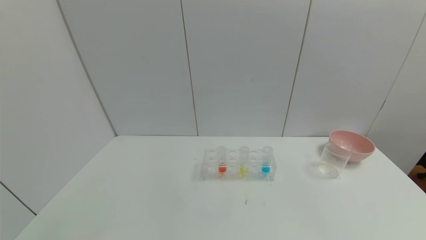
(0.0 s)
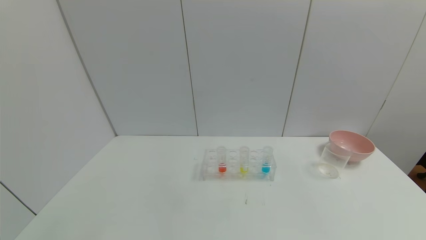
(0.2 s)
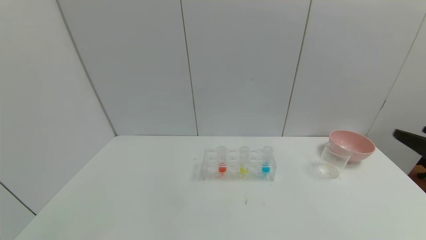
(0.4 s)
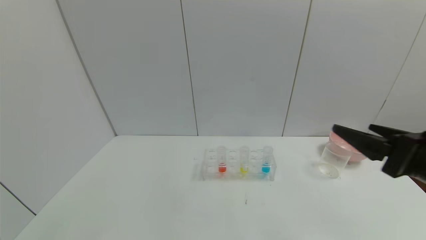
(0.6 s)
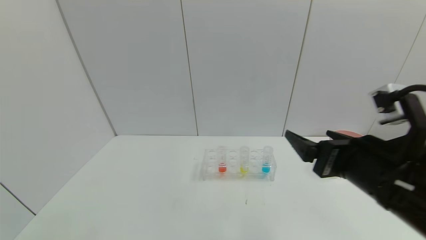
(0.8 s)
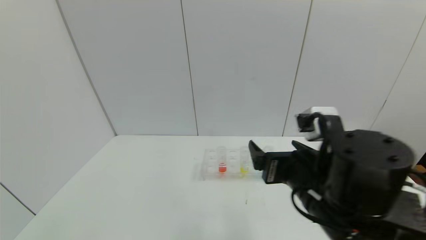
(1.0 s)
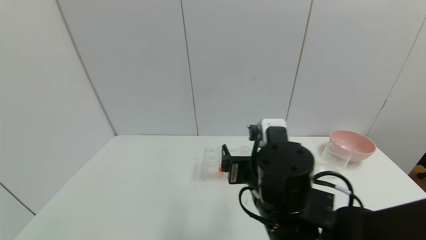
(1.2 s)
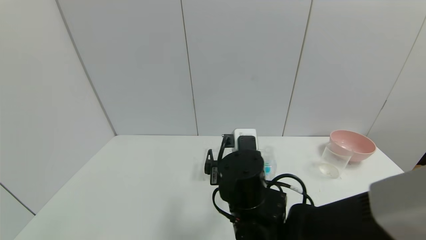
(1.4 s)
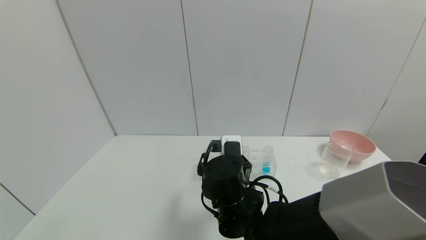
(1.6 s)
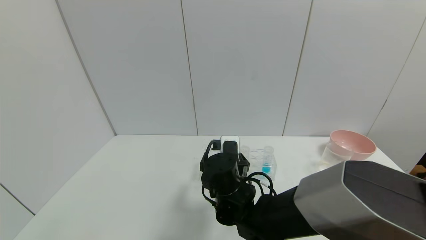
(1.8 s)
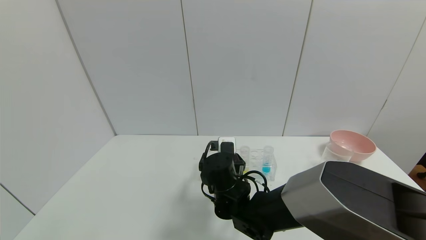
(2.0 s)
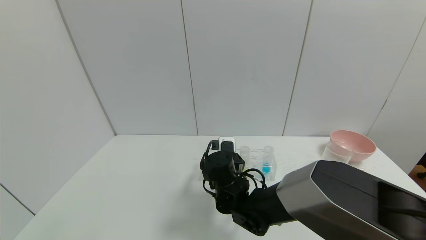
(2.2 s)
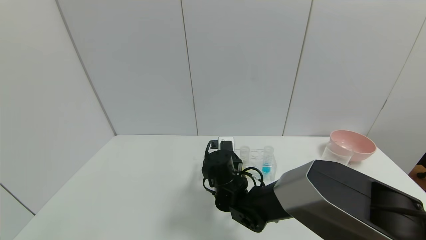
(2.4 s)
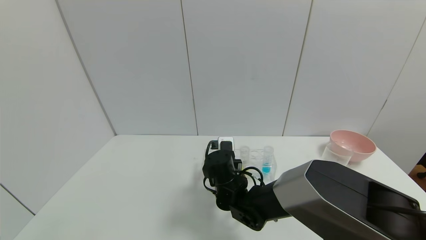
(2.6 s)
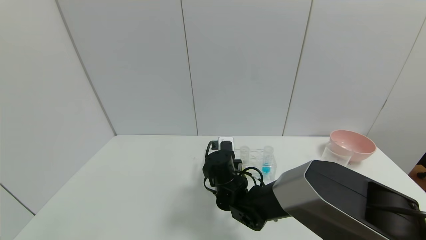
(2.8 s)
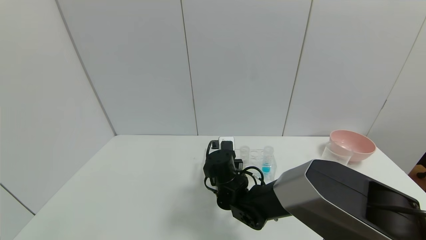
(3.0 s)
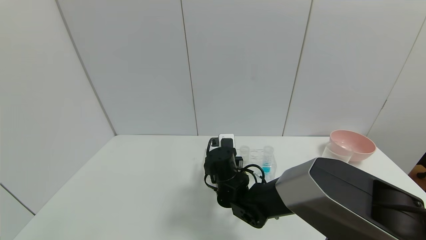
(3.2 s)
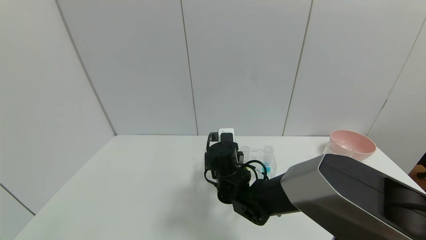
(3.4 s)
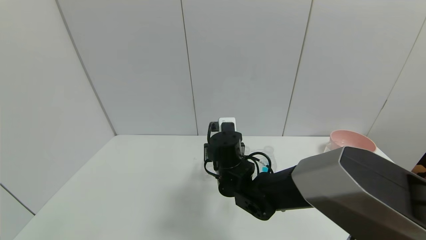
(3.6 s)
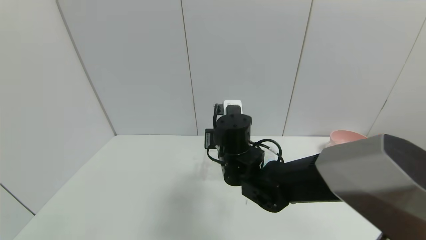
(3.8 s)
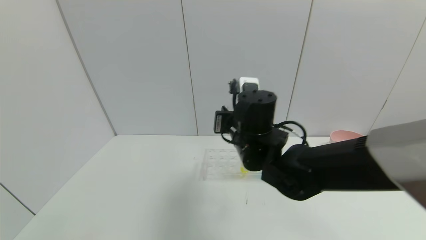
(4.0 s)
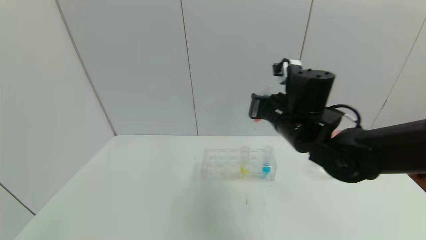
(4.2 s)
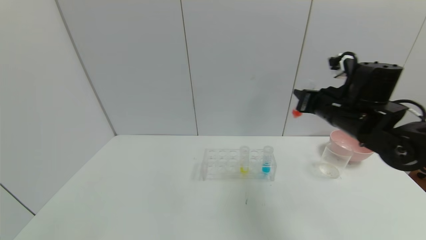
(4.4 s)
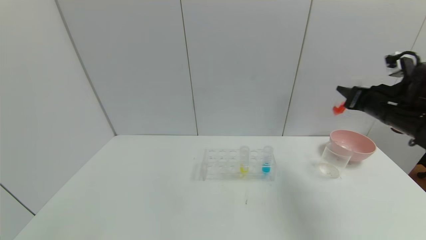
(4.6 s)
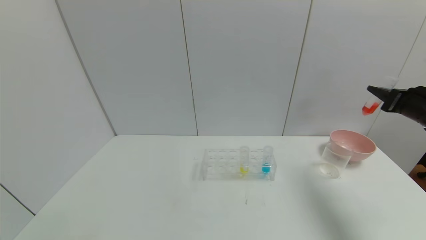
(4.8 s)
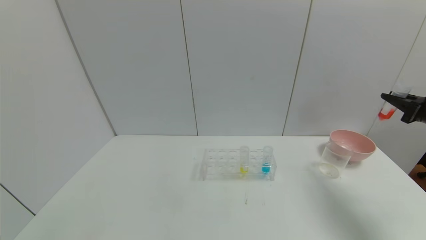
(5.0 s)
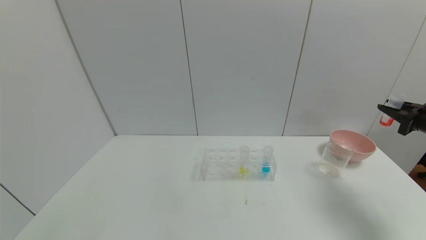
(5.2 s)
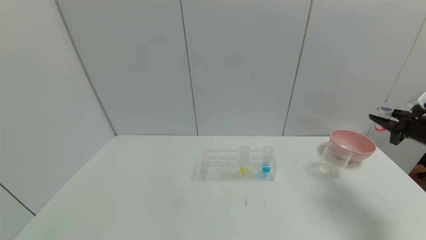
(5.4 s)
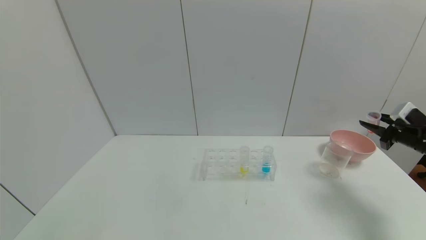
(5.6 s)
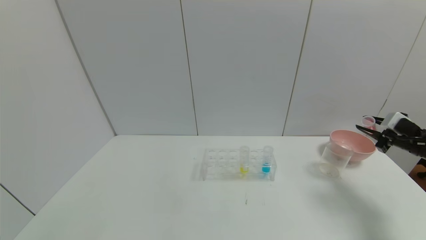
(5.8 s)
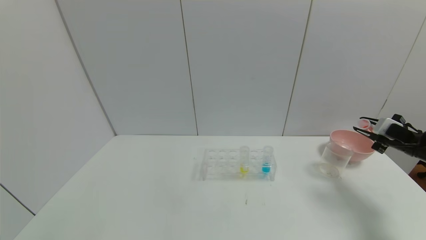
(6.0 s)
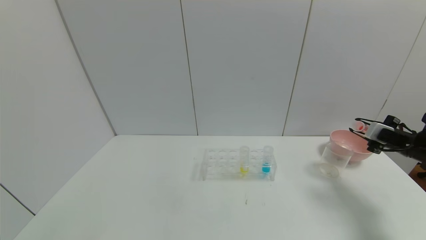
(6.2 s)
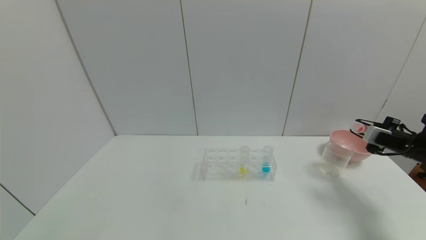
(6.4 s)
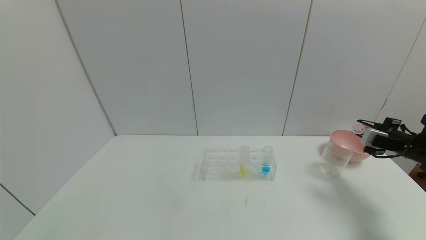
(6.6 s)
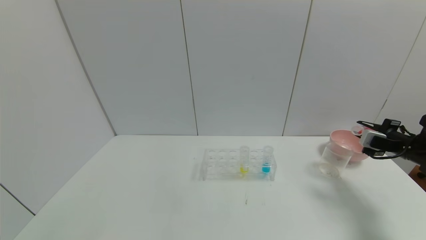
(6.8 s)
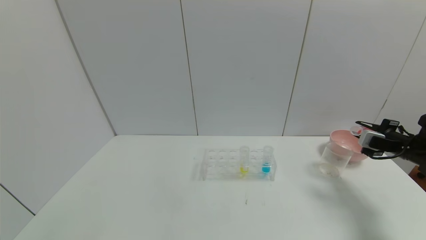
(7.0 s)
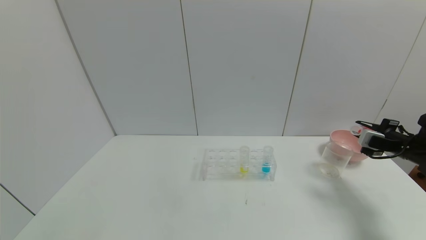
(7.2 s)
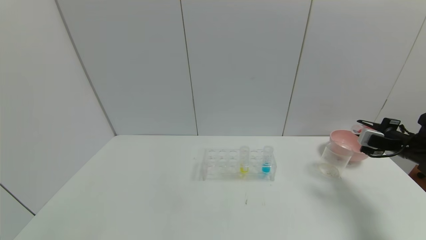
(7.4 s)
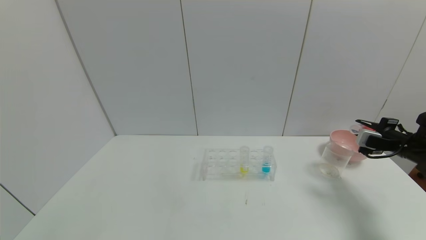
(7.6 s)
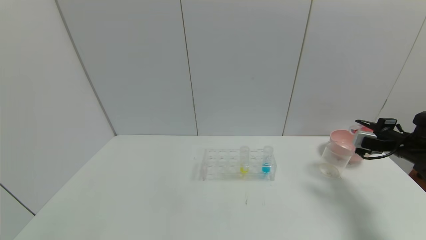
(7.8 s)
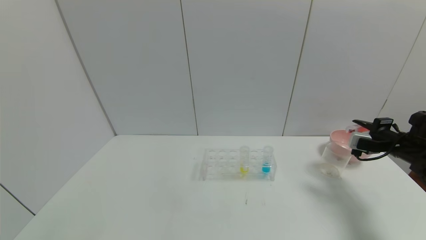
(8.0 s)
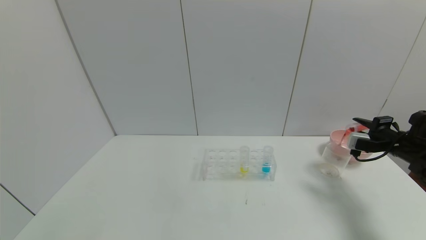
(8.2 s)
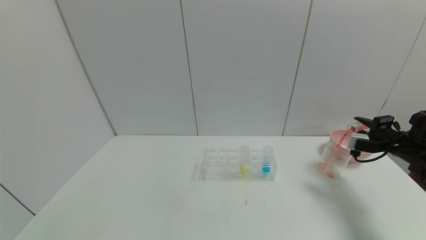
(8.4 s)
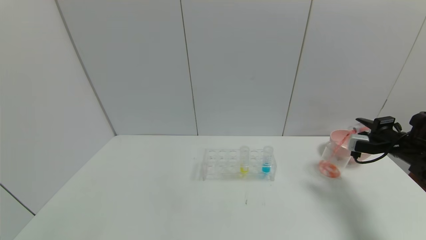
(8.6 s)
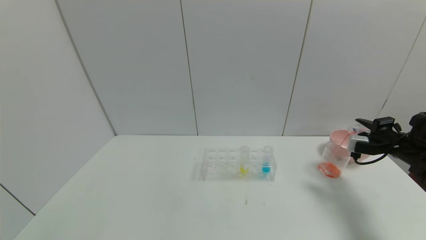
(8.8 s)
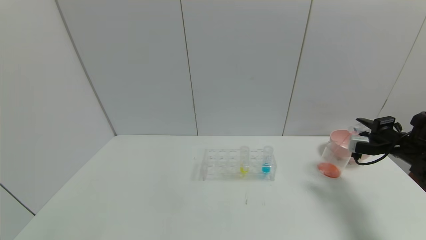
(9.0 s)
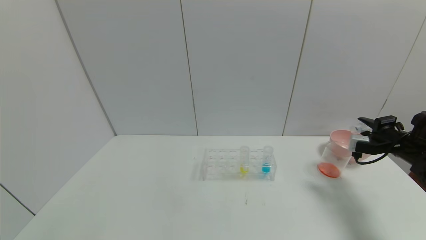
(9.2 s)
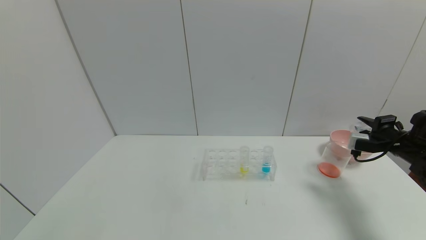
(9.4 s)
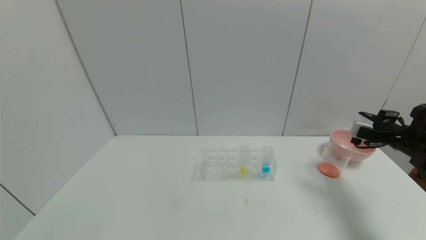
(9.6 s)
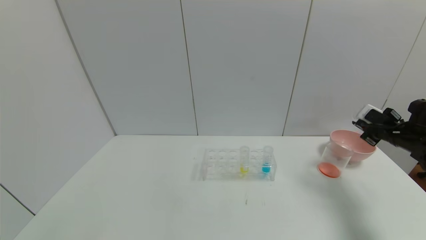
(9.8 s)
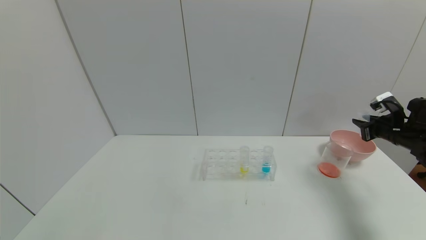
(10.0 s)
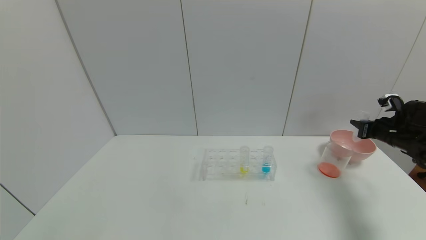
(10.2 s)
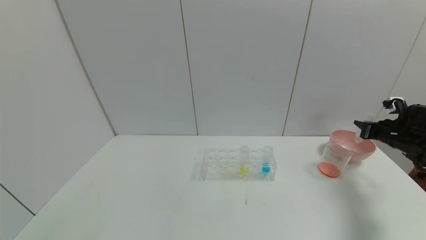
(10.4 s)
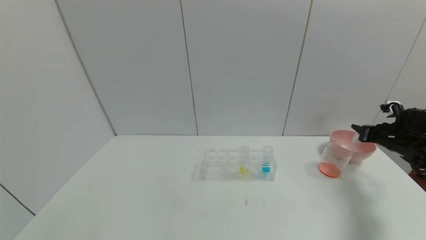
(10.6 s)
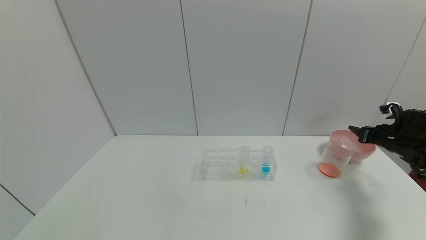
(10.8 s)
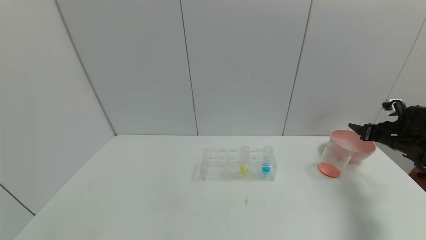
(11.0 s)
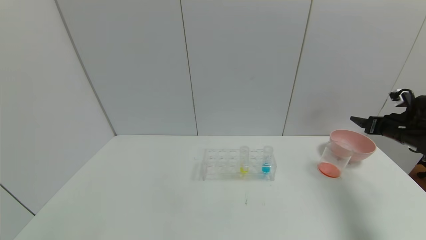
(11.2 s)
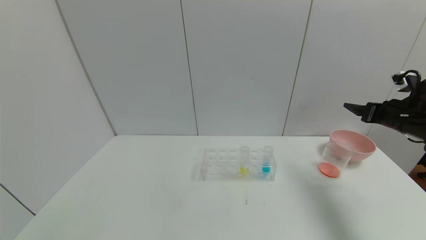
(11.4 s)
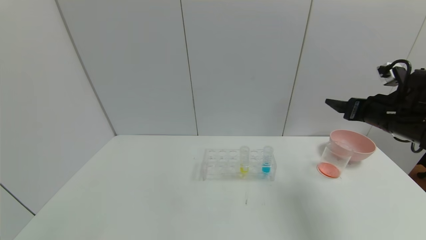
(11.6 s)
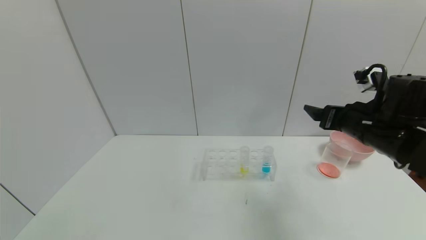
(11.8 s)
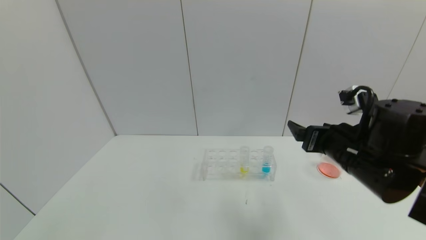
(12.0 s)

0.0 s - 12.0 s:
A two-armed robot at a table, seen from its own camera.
Task of the whole recording: pick up the test tube with yellow pigment and the test tube with red pigment by grippers and pour them into the beaker.
Step, 0.0 s - 2.8 s: Grasp the red reagent with the right gripper.
Step, 3.0 s - 9.2 s: Pour the red reagent into the graduated cylinder with the right gripper.
Step, 9.4 s - 10.8 s: Place the test tube into the bowl with the right gripper.
0.0 s - 1.6 s: The right gripper shifts approximately 40 cm to the left and forward.
1.6 s - 3.0 s: The right gripper is displaced forward and downward by about 10 cm, and closes up.
3.0 s - 4.4 s: The right gripper is displaced to the right and upward by some 30 cm.
4.4 s - 6.0 s: The right gripper travels to the right and downward by roughly 25 cm.
7.6 s - 9.0 s: The grippers make only small movements.
10.4 s - 12.0 s: The right gripper goes approximately 30 cm to the left and backward, and opens.

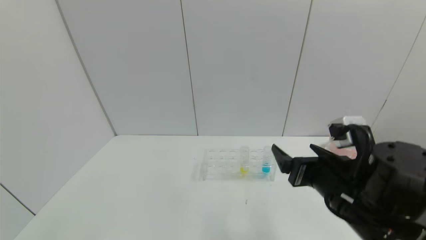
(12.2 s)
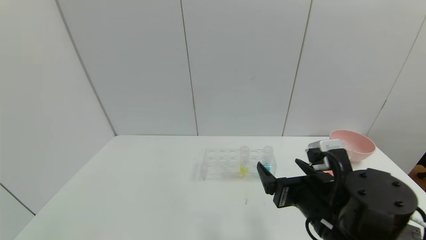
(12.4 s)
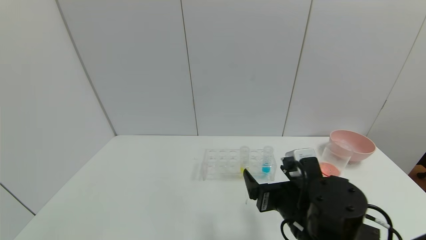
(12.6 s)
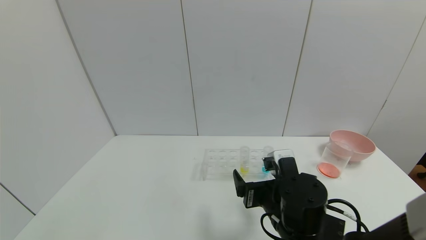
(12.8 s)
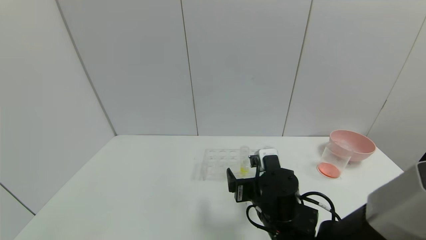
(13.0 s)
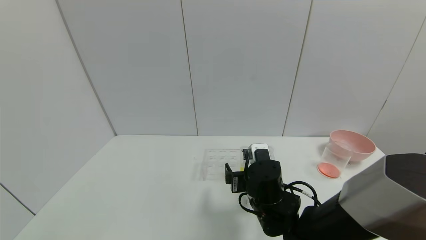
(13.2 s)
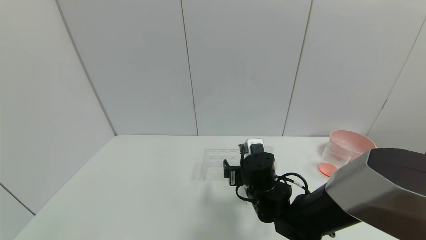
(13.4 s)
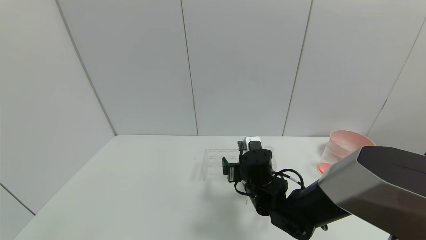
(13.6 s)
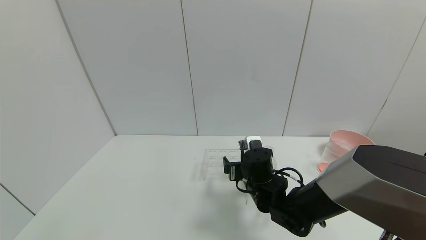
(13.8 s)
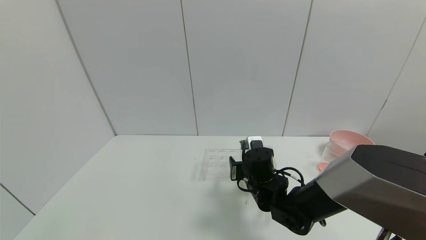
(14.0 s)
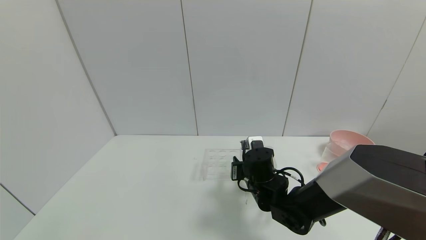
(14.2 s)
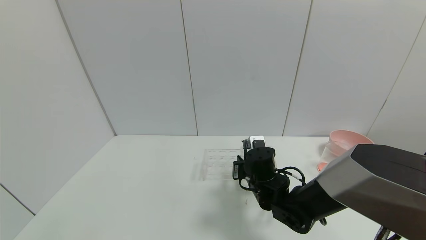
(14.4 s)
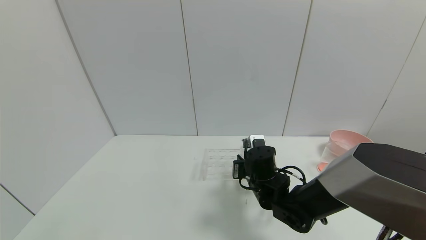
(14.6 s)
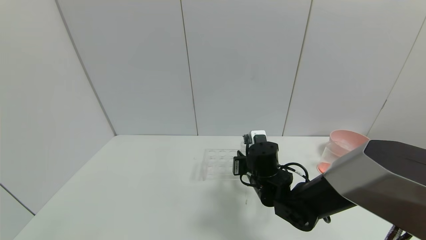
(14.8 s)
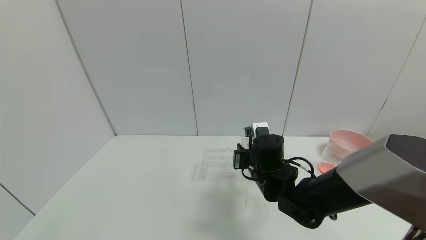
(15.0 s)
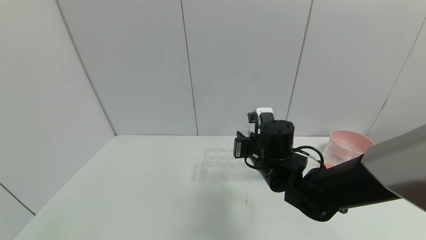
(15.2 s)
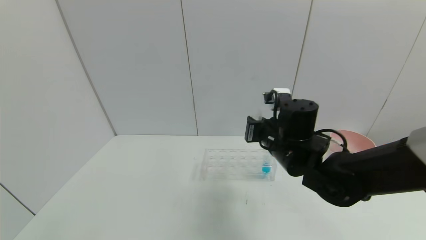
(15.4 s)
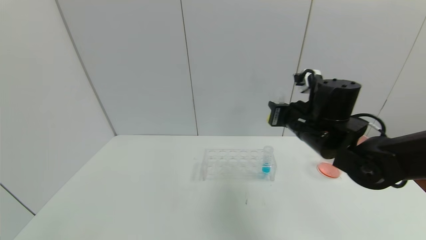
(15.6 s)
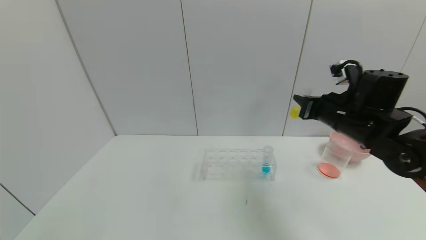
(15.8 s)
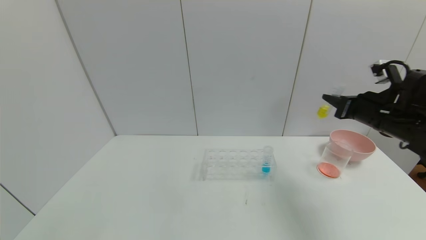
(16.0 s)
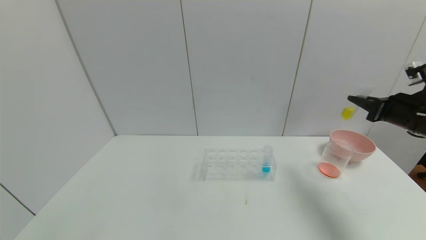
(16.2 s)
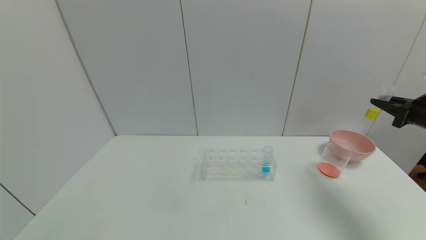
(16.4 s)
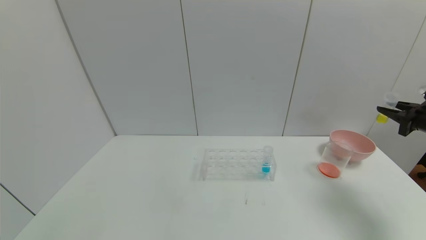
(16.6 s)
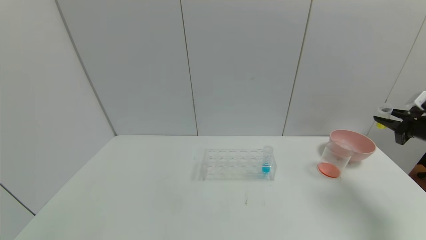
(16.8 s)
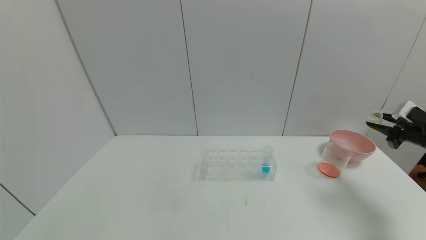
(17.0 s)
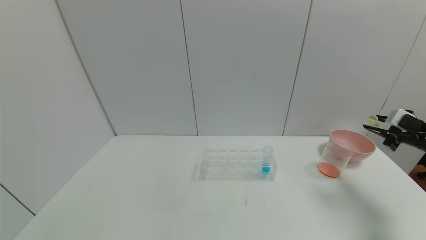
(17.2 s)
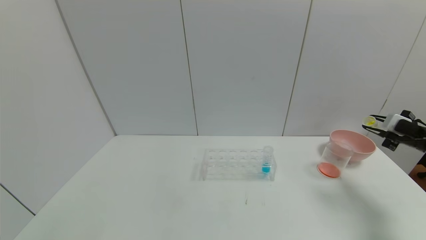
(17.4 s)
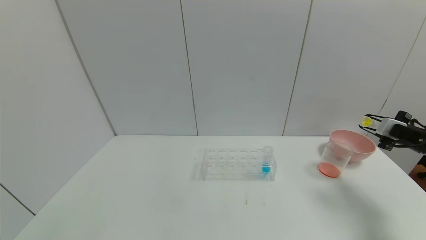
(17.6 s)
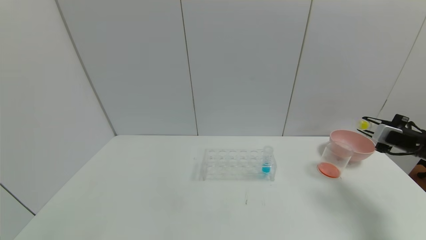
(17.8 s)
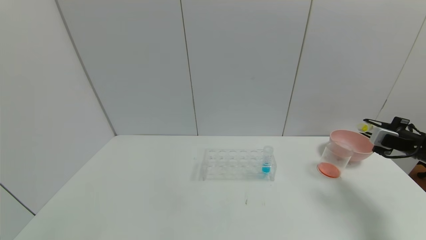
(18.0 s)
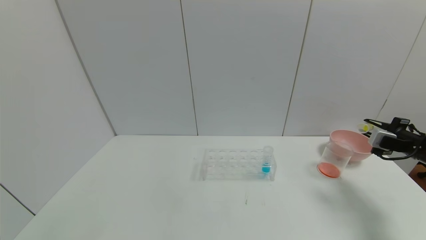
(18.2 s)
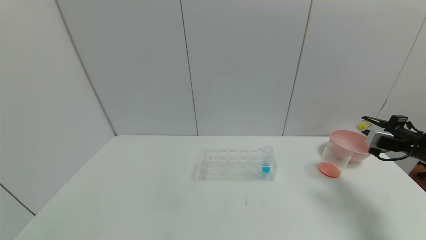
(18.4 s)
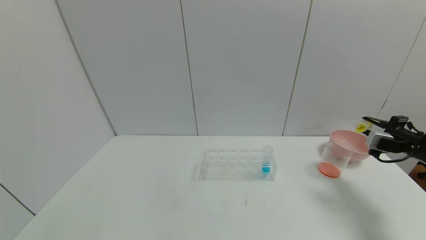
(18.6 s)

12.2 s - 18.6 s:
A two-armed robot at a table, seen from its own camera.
Task of the whole recording: pick up the test tube with yellow pigment and the test tube with red pigment by grippers and pour them into the beaker.
Step, 12.2 s - 14.4 s: Grasp the yellow reagent with the right gripper.
12.2 s - 13.8 s: The right gripper shifts about 20 cm forward, downward and to the left.
13.8 s - 15.4 s: The right gripper heads upward, covering approximately 10 cm, and closes.
15.4 s - 17.0 s: The right gripper goes approximately 35 cm to the right.
